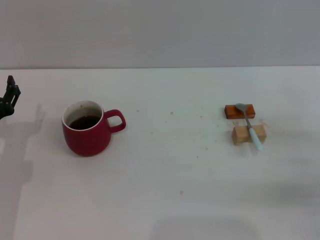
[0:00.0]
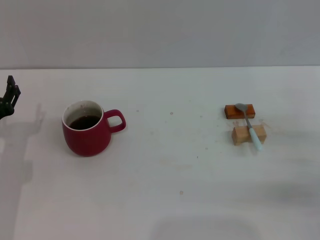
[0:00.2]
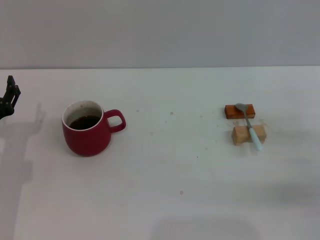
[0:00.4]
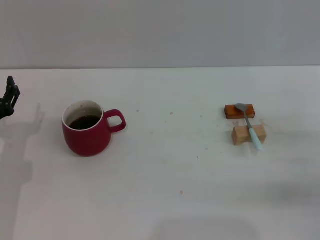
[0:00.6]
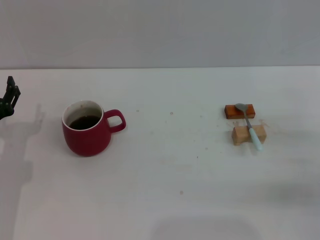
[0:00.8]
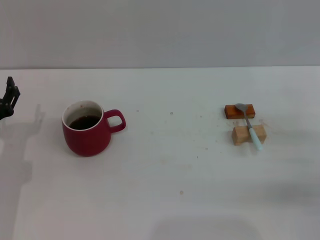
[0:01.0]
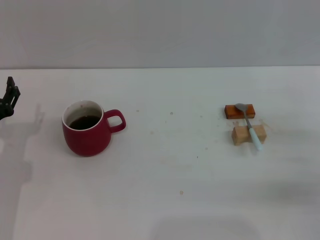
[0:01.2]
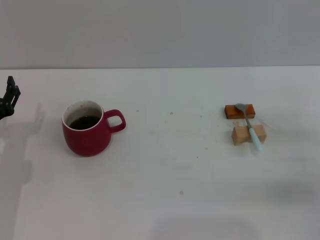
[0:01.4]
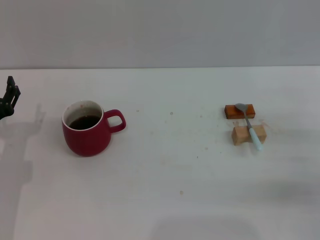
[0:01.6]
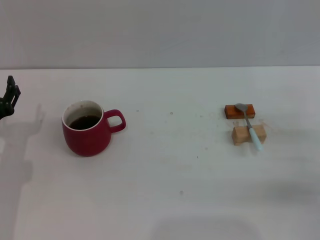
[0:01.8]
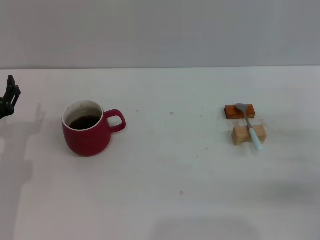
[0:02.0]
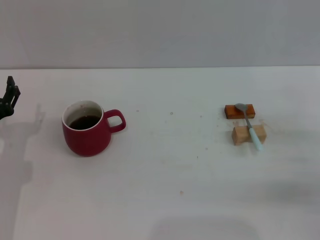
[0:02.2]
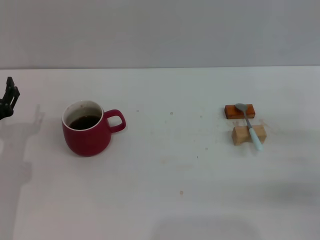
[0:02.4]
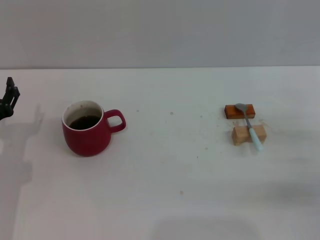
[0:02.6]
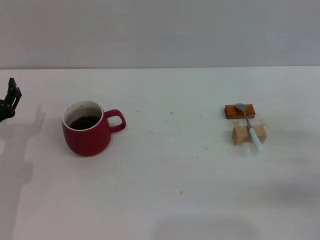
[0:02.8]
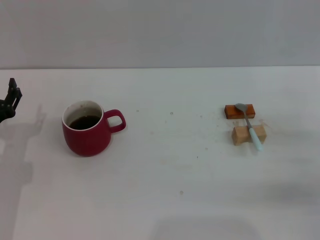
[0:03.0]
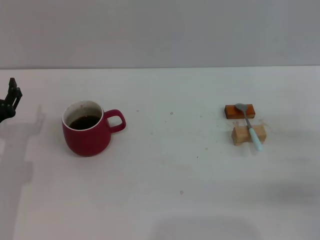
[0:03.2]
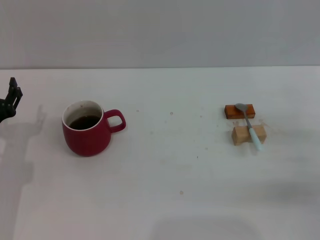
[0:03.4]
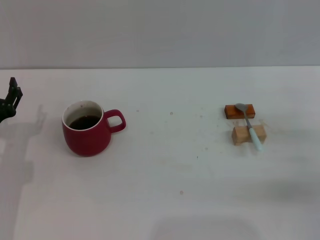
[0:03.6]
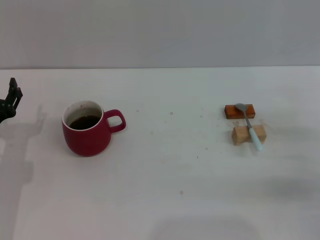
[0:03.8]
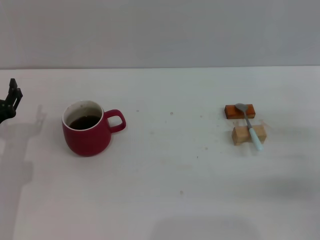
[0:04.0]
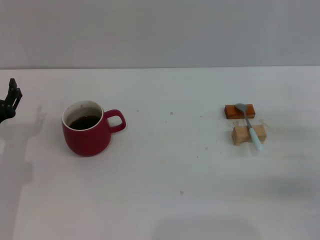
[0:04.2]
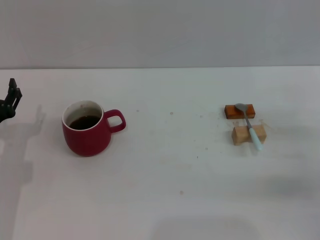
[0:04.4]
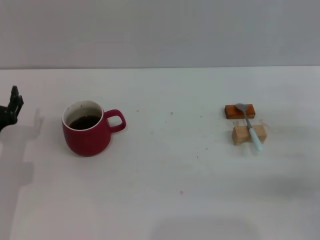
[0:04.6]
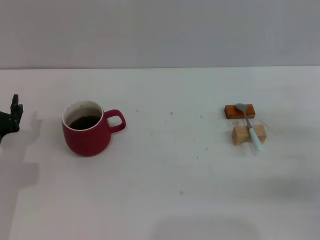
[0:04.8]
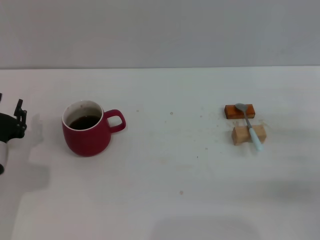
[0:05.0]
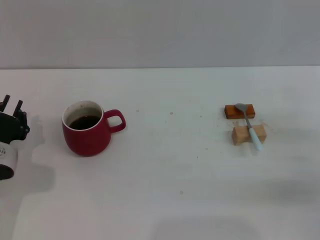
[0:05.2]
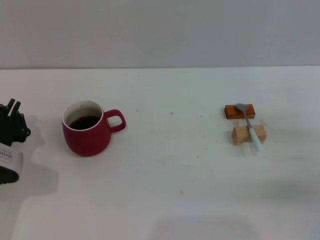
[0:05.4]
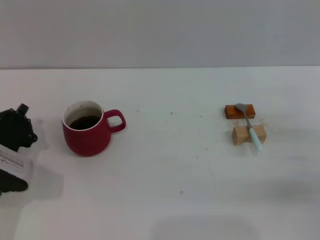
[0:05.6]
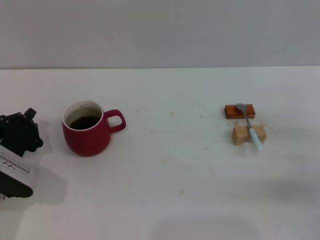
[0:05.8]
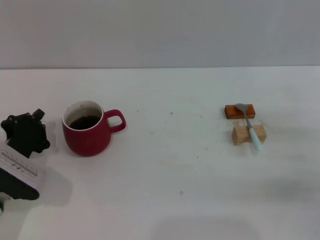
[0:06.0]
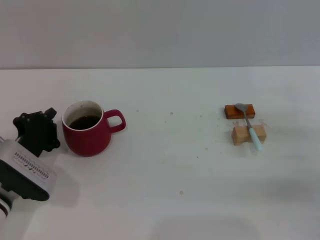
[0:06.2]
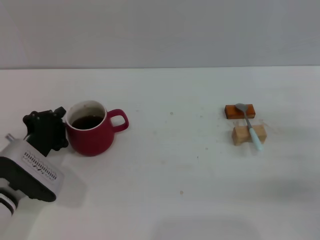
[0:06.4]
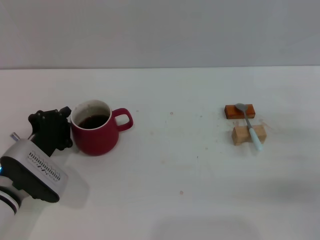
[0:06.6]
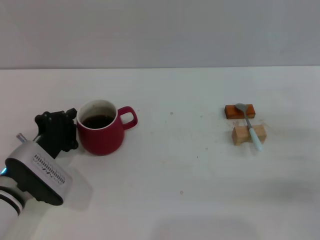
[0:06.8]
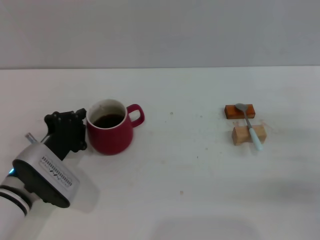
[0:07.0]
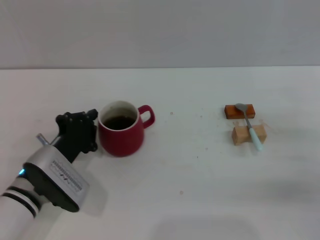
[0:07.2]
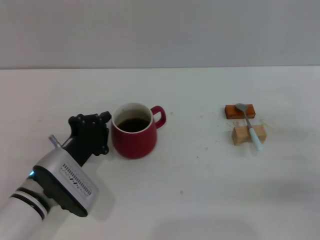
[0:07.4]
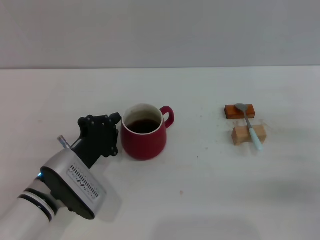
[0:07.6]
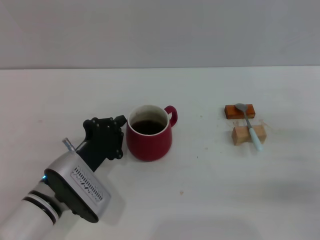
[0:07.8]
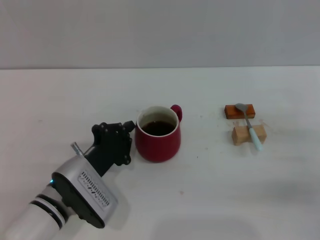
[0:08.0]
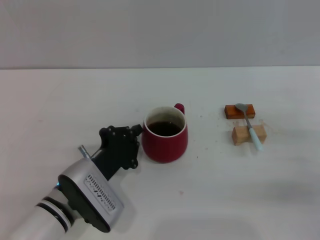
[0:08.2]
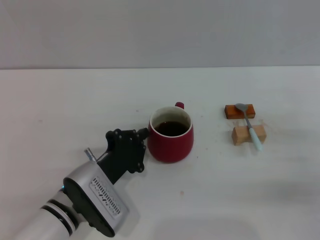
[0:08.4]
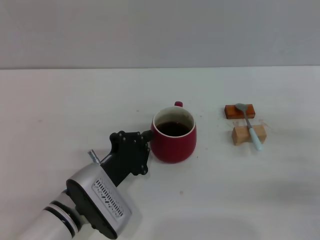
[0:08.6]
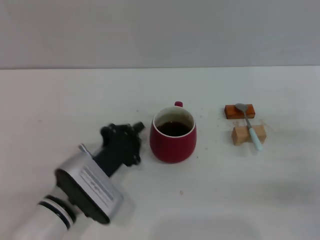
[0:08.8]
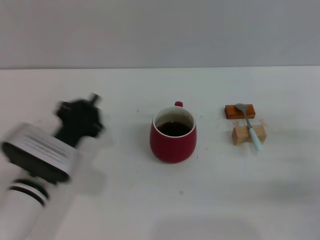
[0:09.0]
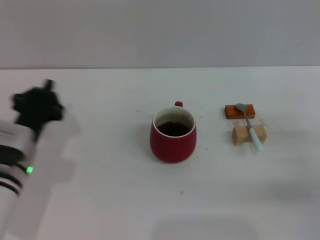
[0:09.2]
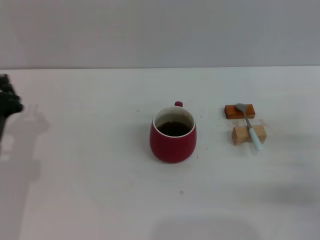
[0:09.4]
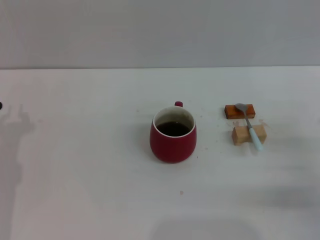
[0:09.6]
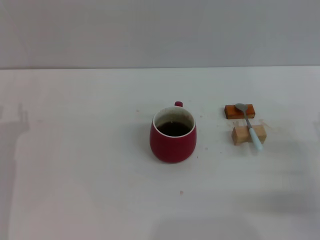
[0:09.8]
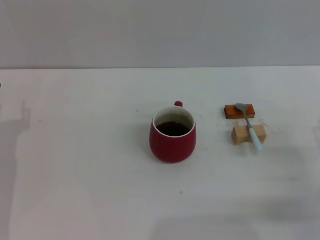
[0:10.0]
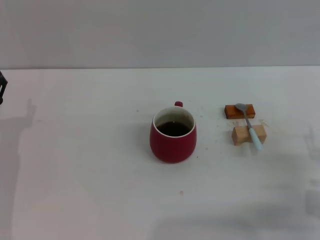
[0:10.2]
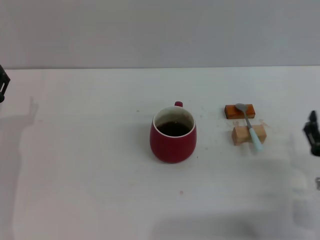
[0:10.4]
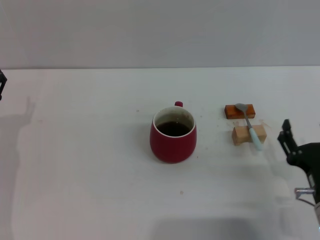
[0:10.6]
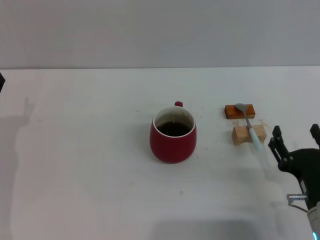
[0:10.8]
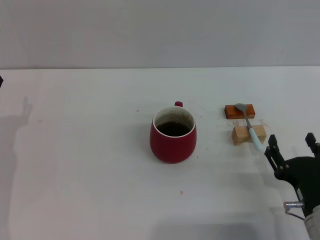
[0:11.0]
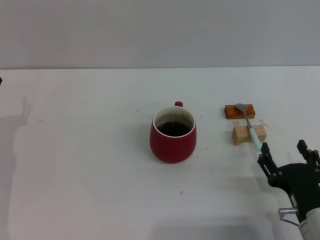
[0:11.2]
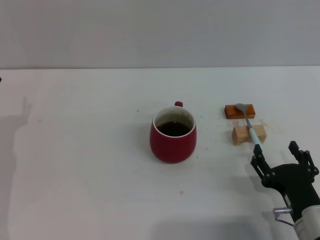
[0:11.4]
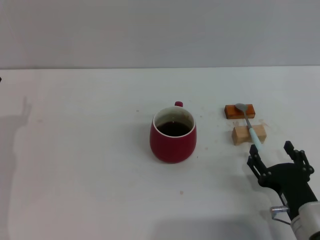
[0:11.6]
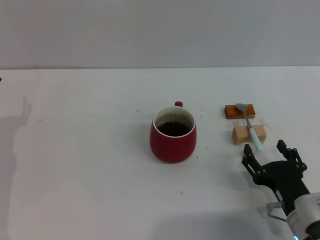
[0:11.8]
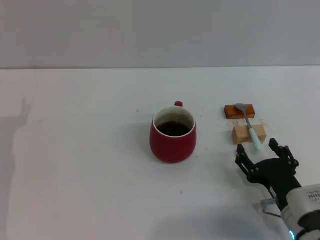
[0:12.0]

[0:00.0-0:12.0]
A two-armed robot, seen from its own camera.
Task of the whole recording: Move the red cup to the center, lift the blue spoon, stir it three times in the cup, and put the spoon into the cup.
Step, 0:00.0 to 0:08.8: Move the cup with coffee to the center of view with the left gripper.
0:00.0 to 0:04.4: Both grippers stay put.
0:04.4 to 0:06.0: The left gripper closes.
0:06.0 to 0:07.6: The left gripper goes about 10 cm to the right.
0:09.0 to 0:10.4: The left gripper goes approximately 10 cm to the left, and opens up. The right gripper heads to the left and backward, covering approximately 10 cm.
0:10.4 to 0:12.0: The right gripper changes place by roughly 5 cm.

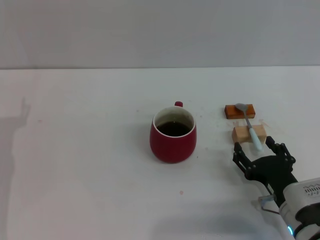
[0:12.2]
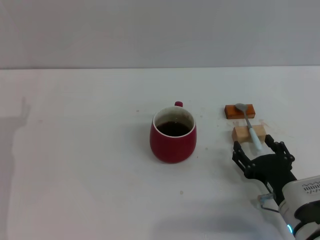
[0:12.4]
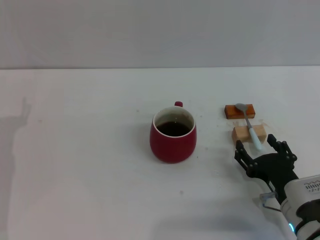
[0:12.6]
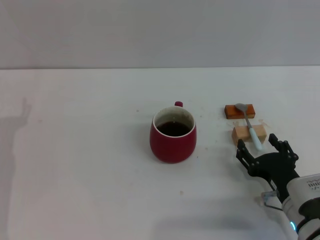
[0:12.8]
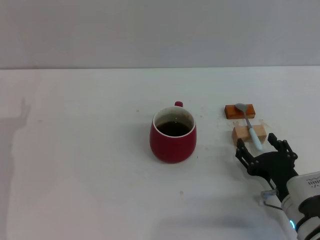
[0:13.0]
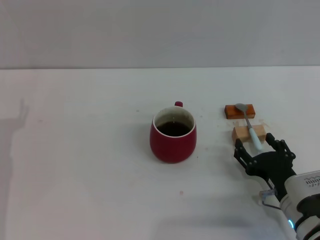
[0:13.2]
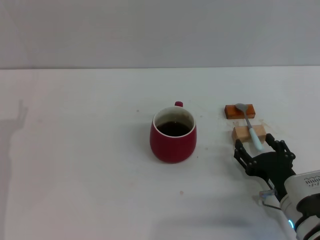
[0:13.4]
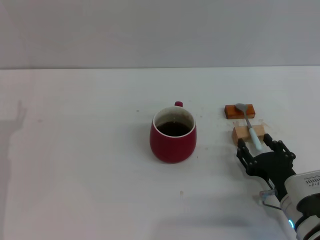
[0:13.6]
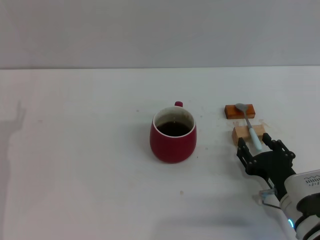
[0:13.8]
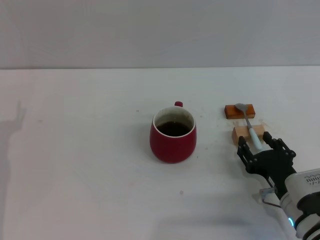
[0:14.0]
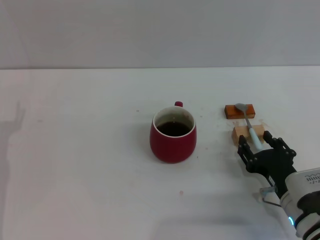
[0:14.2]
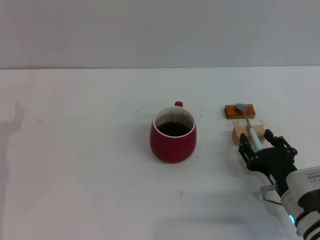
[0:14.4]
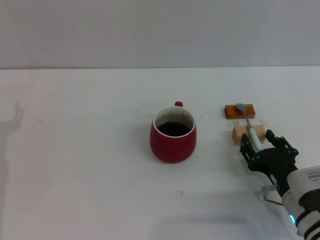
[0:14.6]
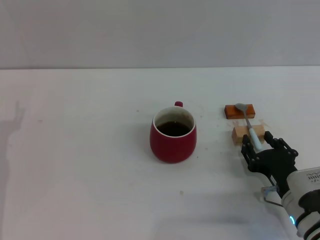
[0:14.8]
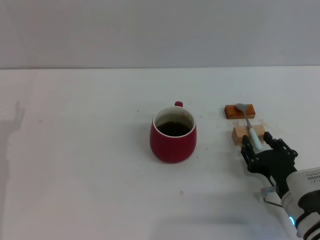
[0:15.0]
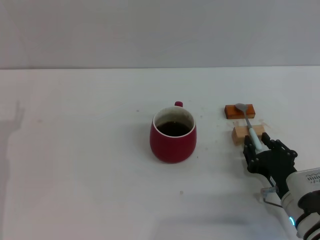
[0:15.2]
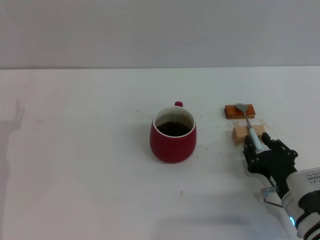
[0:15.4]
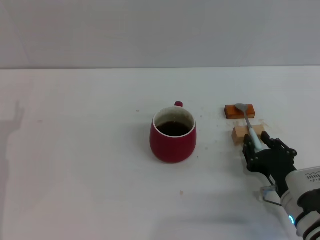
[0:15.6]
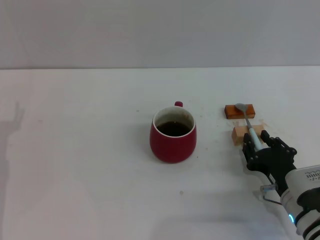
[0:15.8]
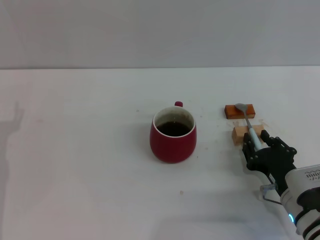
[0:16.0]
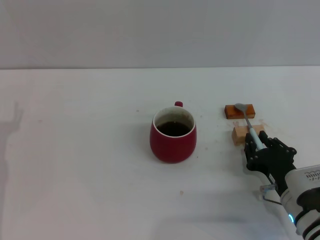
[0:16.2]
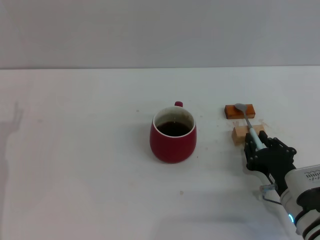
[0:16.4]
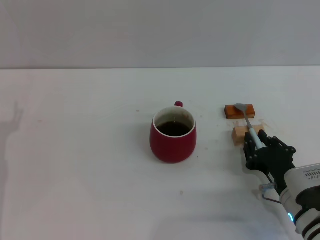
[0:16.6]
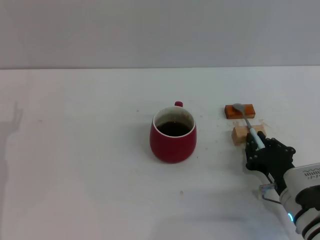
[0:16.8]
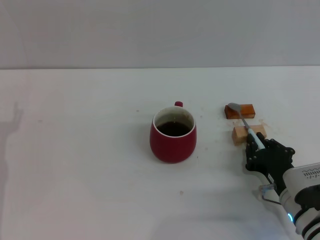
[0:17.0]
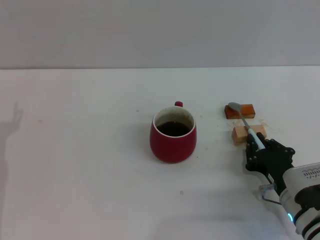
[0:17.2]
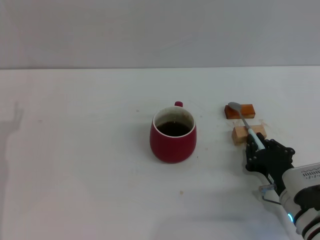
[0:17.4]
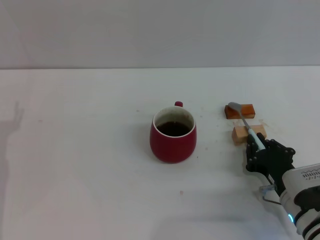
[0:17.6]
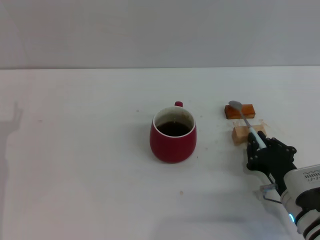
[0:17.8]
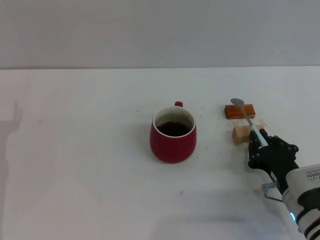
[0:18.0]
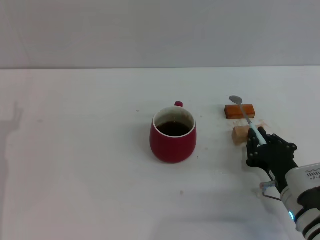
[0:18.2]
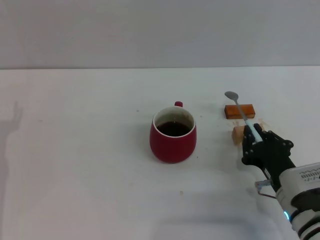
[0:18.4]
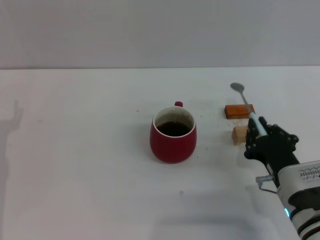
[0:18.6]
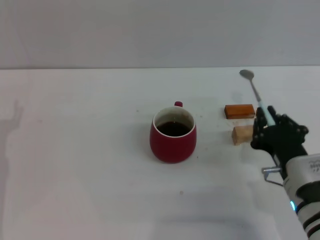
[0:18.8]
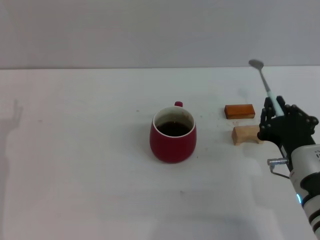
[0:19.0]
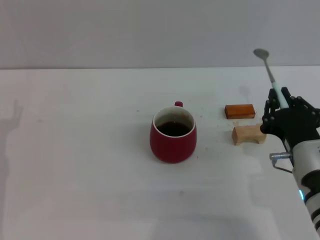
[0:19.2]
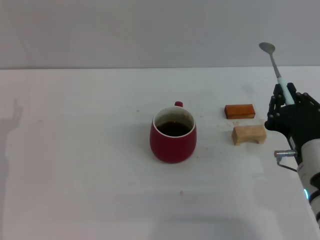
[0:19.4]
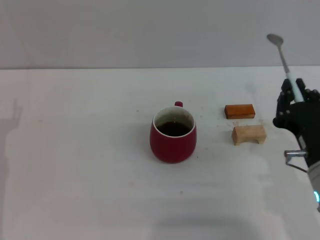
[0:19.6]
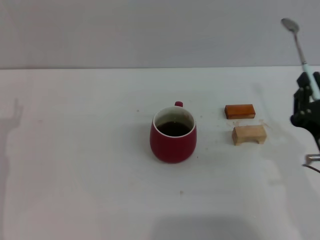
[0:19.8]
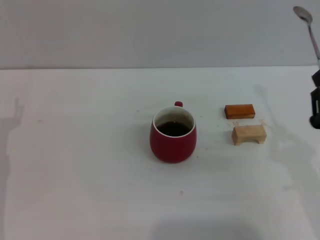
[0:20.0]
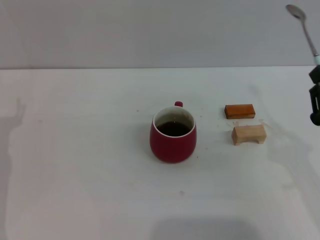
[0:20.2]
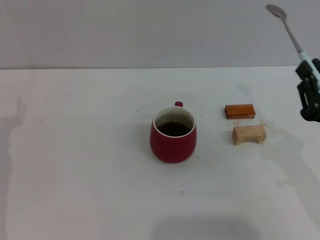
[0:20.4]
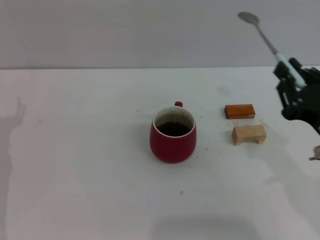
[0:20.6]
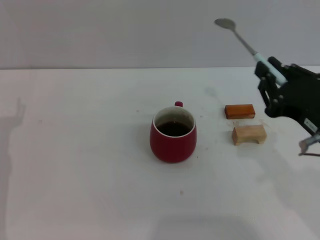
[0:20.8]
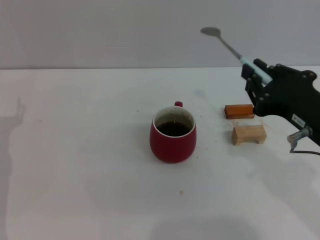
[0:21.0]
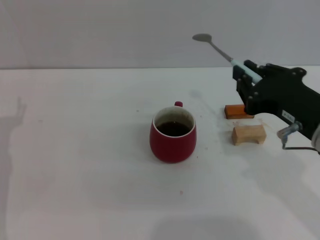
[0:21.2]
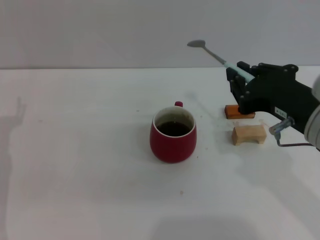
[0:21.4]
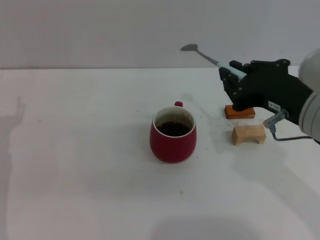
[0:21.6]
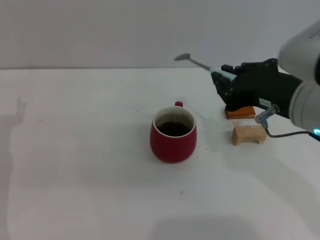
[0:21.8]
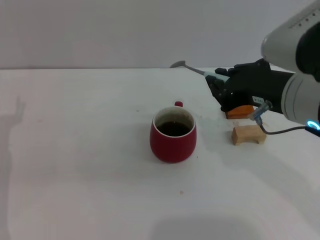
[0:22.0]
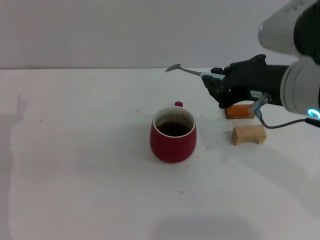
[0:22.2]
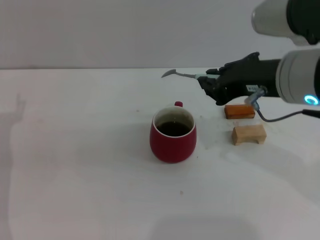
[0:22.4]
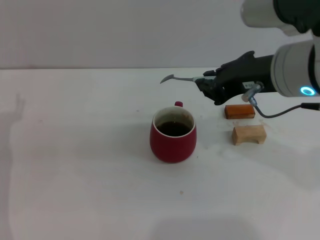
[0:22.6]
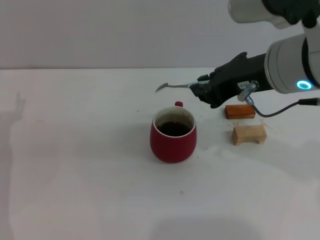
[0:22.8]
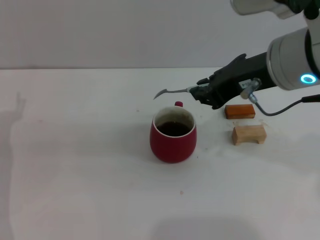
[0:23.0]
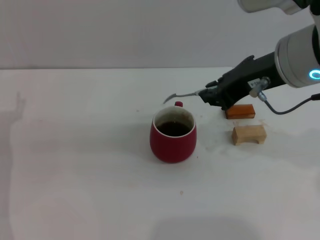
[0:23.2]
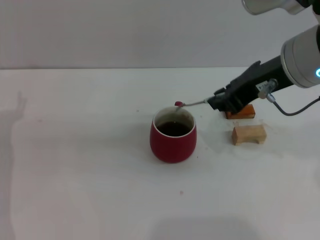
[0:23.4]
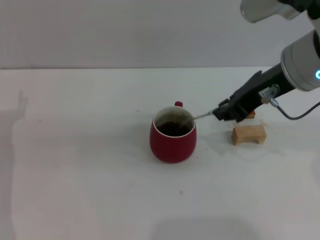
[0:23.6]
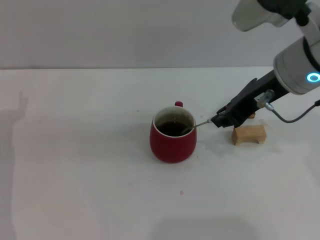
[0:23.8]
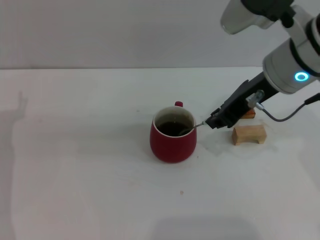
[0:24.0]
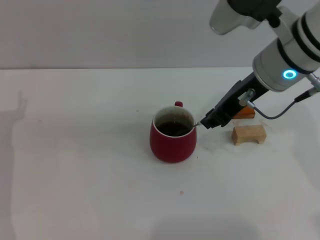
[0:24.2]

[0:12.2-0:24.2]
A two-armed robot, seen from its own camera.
Task of the whole recording: Move the red cup to the center, lift the blue spoon, stir it three times in the cup, and put the spoon into the cup.
Step, 0:12.2 to 0:18.2: Pick up the spoon with the right gripper.
0:12.2 to 0:13.8: Both grippers stay put.
0:13.8 to 0:18.2: Both grippers stay put.
0:18.2 to 0:19.8: The right gripper shifts roughly 10 cm upward.
0:19.8 to 0:21.2: The right gripper travels upward by approximately 10 cm.
0:21.2 to 0:22.6: The right gripper moves upward and forward, some 10 cm.
0:22.6 to 0:24.2: The right gripper travels forward by some 5 cm.
